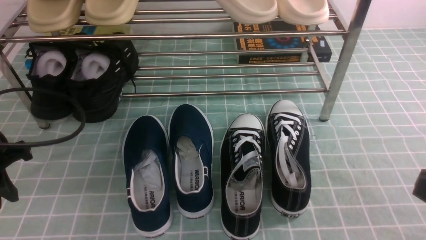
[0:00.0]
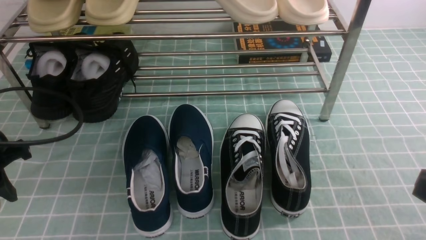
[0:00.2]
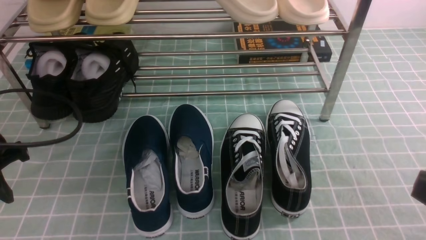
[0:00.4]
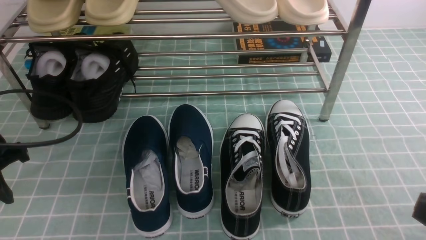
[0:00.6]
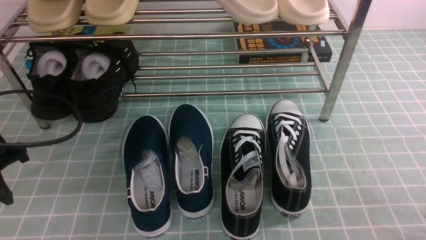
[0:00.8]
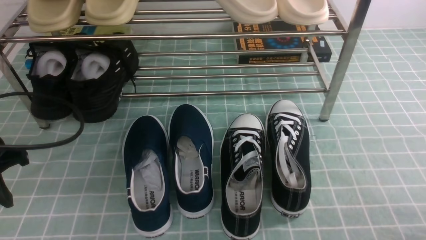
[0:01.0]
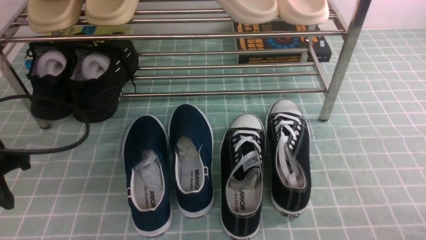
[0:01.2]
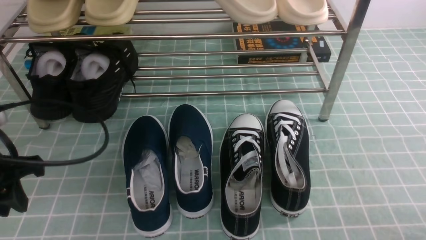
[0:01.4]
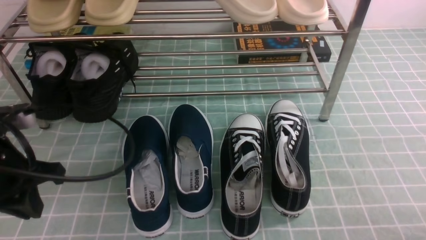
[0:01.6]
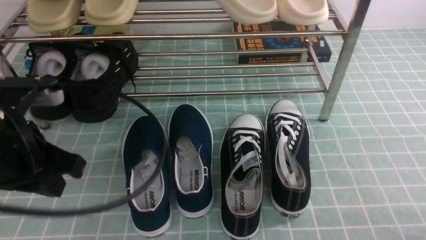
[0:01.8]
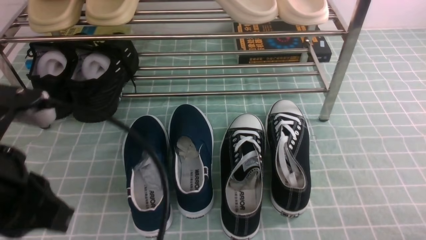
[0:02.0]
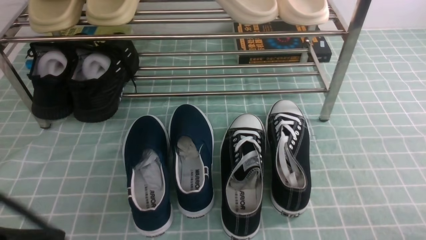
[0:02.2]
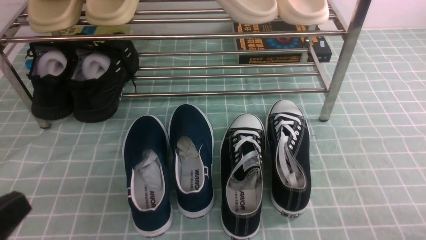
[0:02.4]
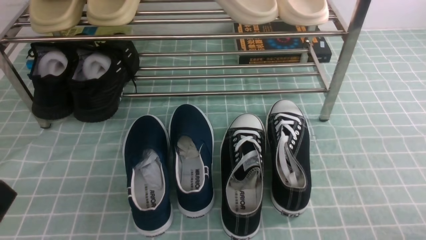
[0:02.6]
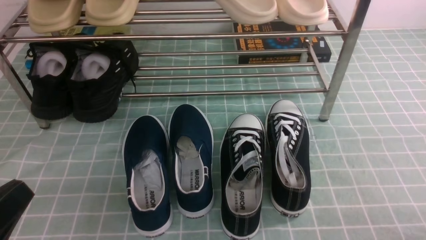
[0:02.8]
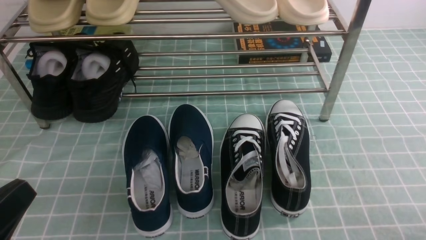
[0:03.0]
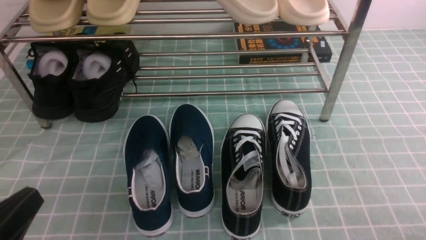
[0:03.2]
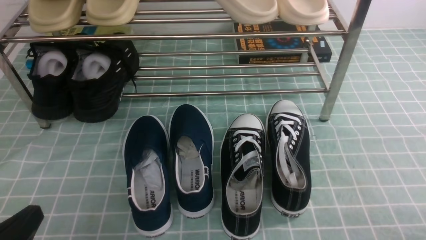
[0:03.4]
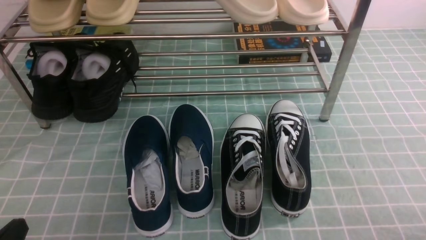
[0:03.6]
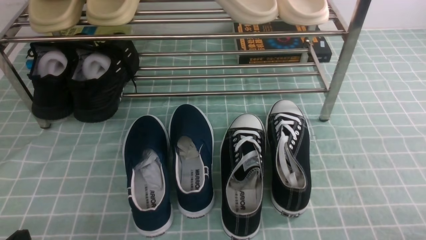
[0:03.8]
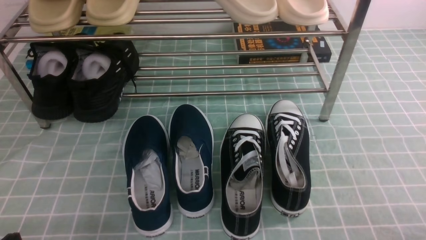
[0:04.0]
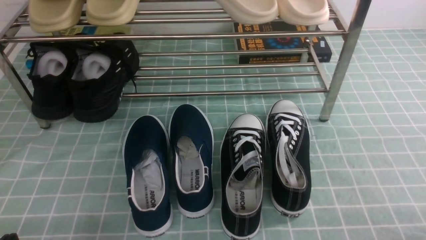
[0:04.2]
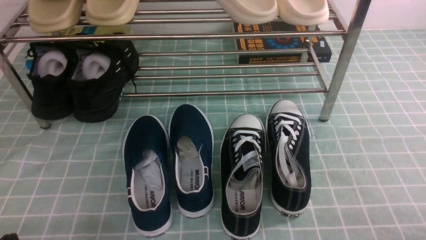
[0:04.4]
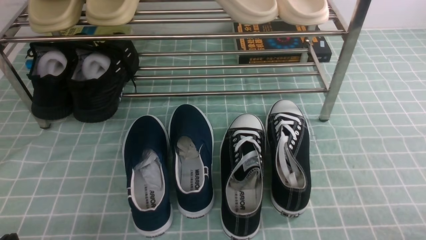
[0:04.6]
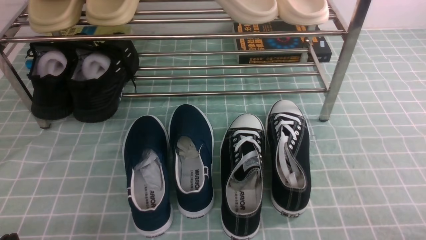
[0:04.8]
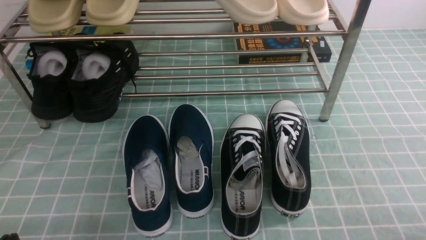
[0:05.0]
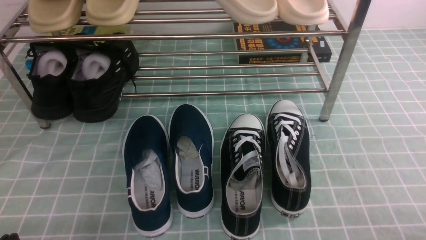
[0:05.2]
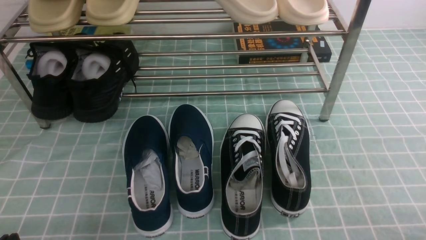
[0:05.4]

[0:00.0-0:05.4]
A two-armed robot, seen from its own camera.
0:00.0 to 0:01.4: The right gripper shifts about 15 cm downward.
0:01.4 to 0:02.8: The left gripper heads backward, covering approximately 20 cm, and closes up.
0:02.8 to 0:04.0: The left gripper heads downward, covering roughly 10 cm.
0:04.0 to 0:05.4: The two grippers keep their place.

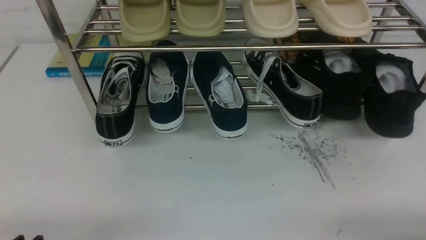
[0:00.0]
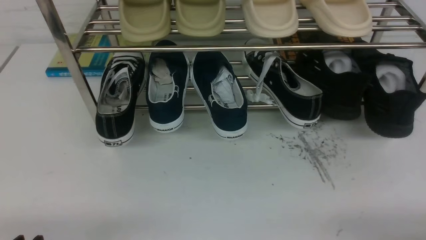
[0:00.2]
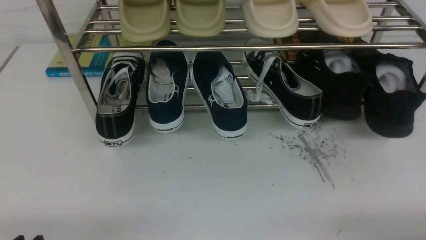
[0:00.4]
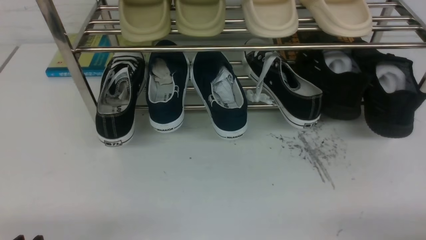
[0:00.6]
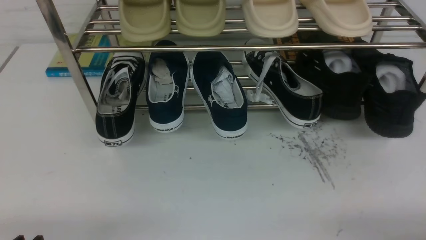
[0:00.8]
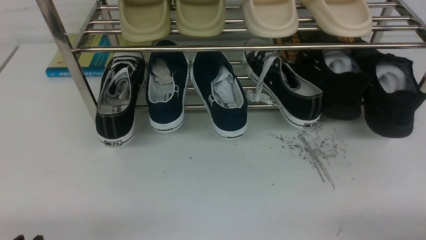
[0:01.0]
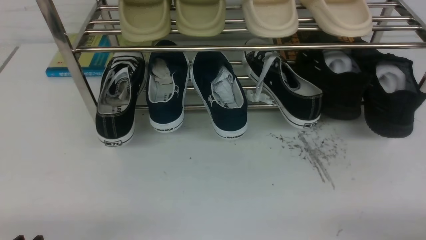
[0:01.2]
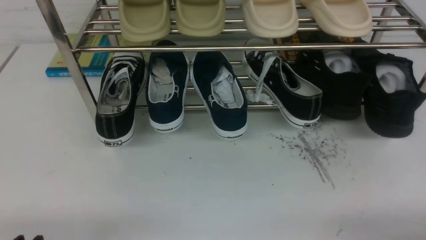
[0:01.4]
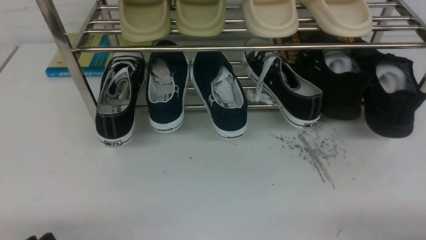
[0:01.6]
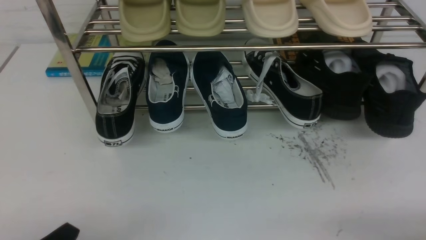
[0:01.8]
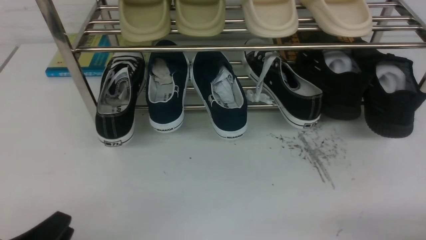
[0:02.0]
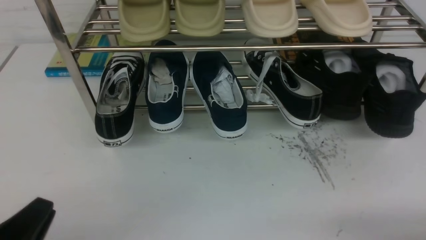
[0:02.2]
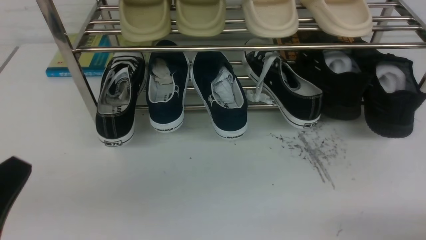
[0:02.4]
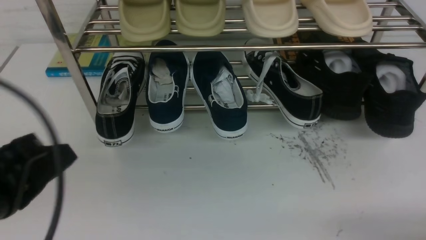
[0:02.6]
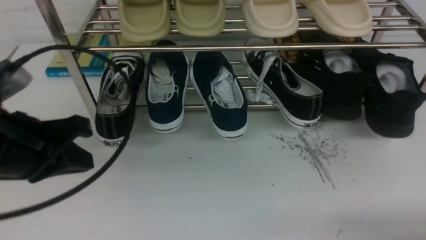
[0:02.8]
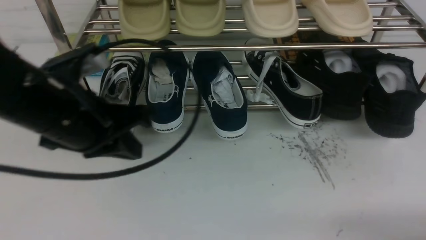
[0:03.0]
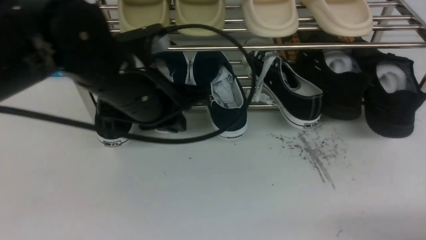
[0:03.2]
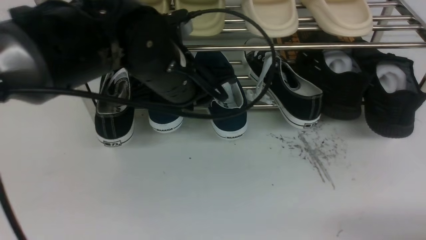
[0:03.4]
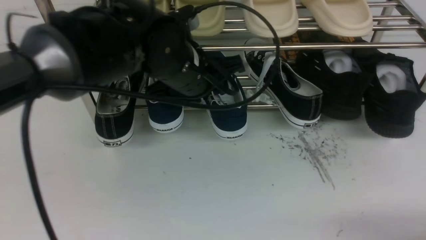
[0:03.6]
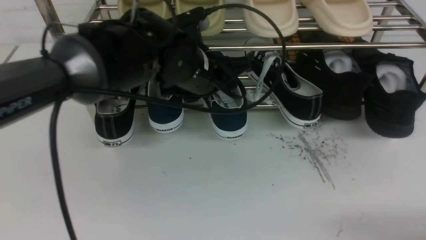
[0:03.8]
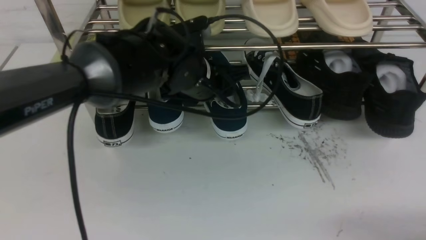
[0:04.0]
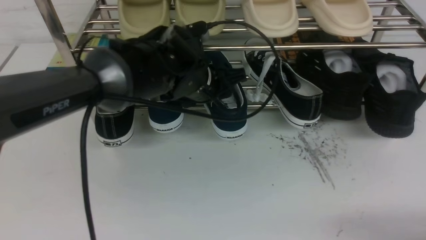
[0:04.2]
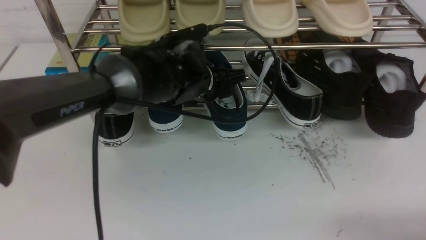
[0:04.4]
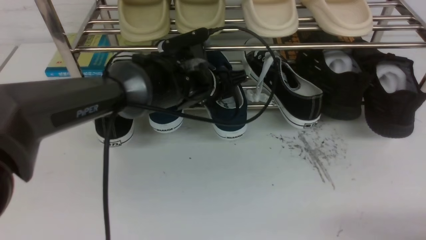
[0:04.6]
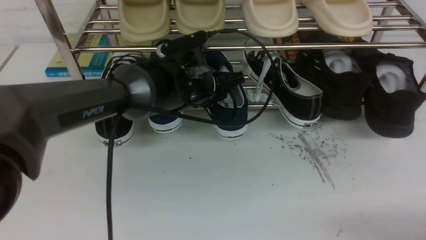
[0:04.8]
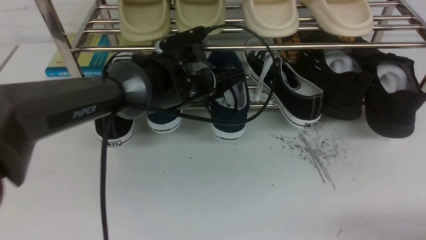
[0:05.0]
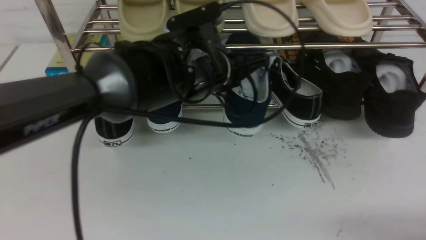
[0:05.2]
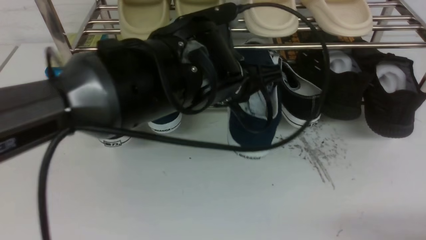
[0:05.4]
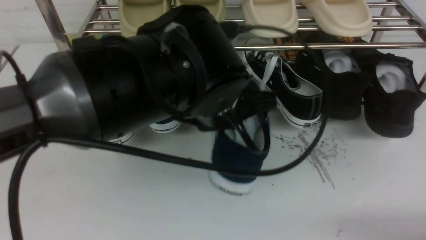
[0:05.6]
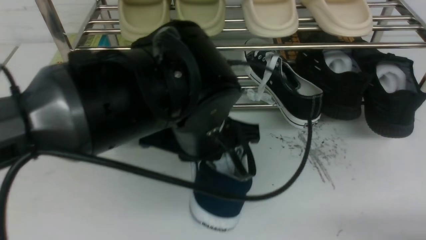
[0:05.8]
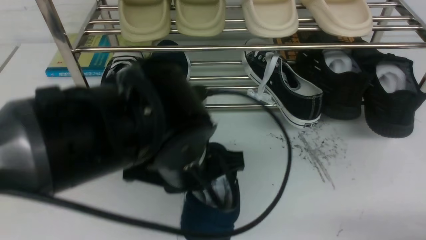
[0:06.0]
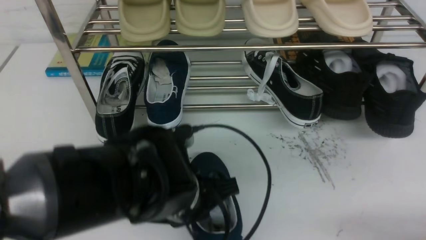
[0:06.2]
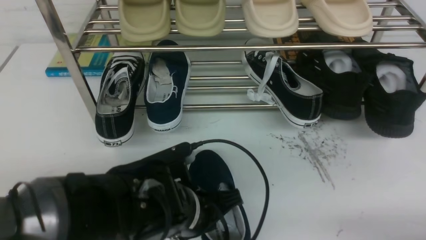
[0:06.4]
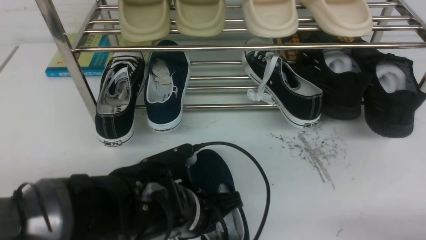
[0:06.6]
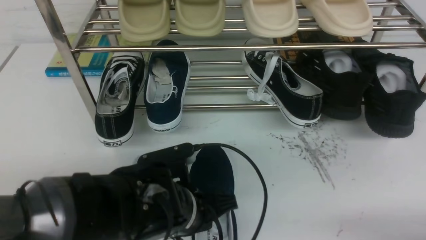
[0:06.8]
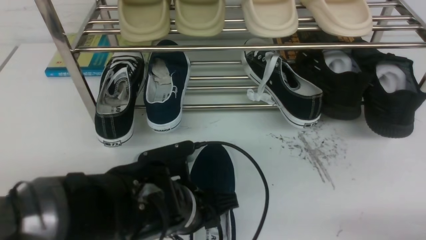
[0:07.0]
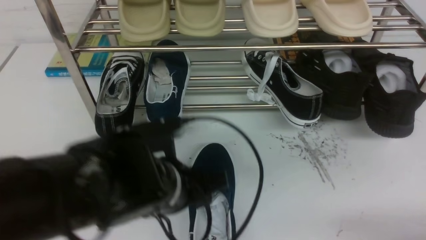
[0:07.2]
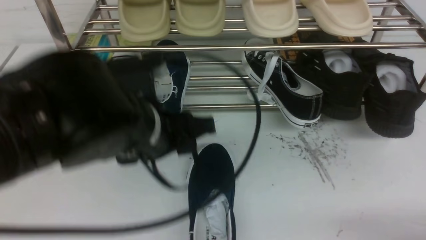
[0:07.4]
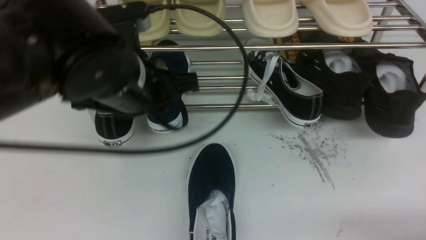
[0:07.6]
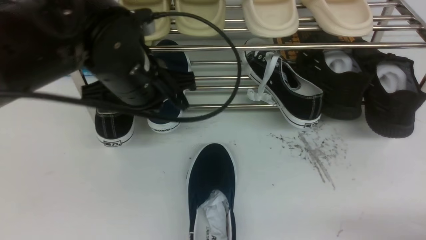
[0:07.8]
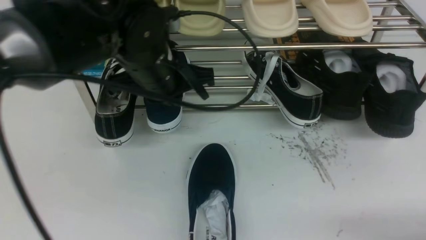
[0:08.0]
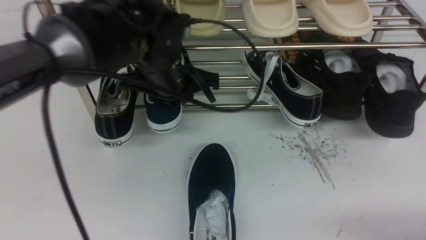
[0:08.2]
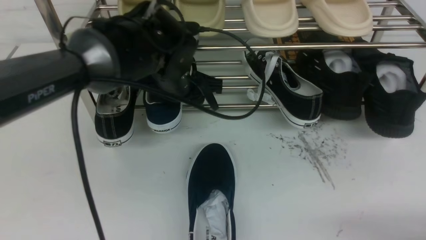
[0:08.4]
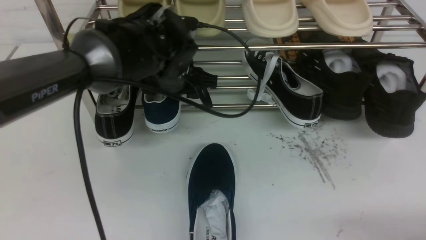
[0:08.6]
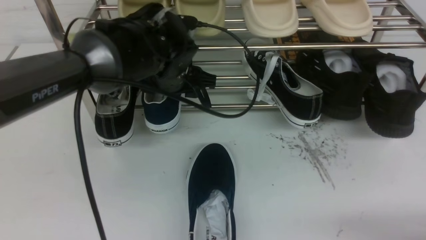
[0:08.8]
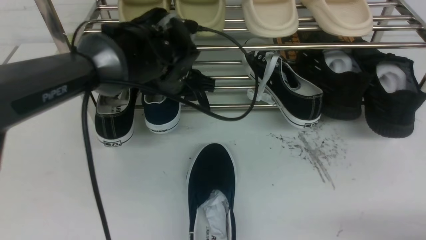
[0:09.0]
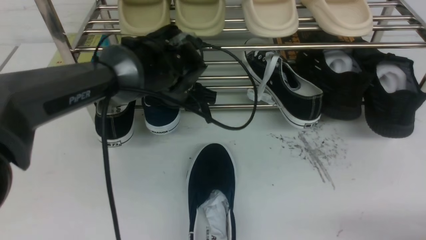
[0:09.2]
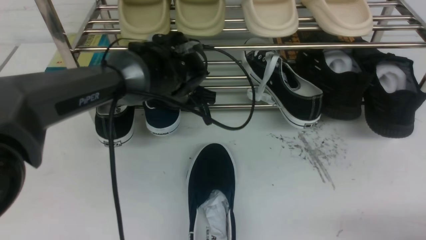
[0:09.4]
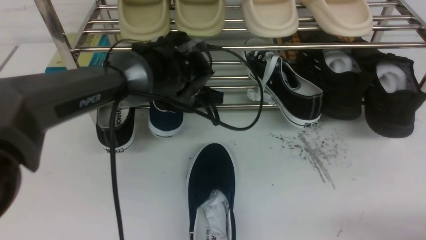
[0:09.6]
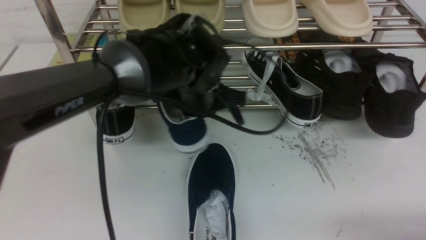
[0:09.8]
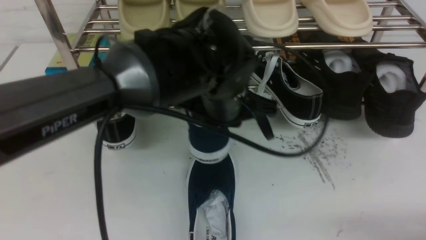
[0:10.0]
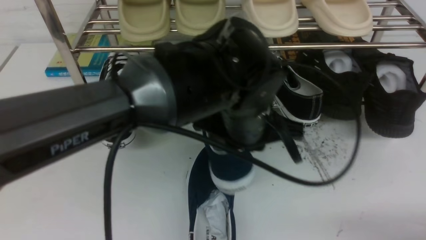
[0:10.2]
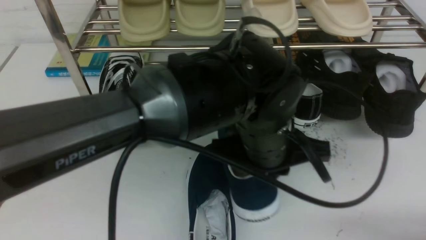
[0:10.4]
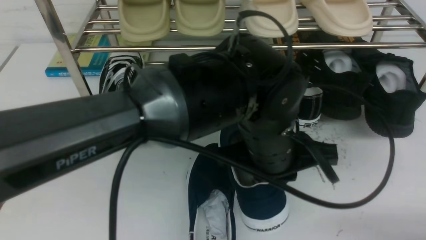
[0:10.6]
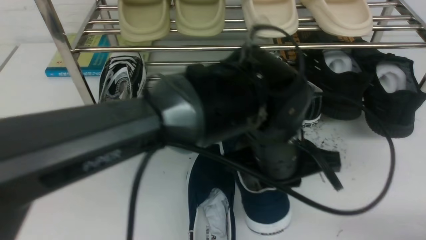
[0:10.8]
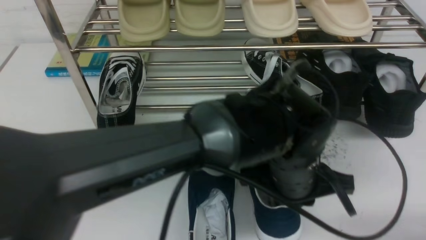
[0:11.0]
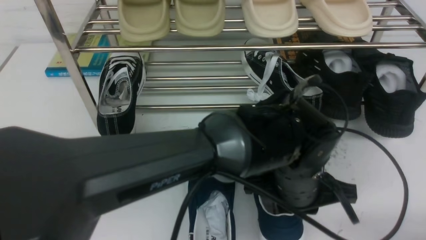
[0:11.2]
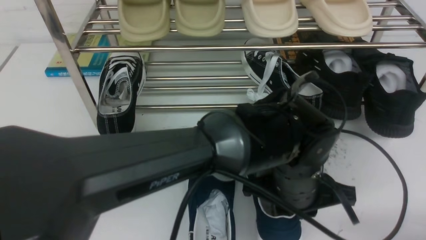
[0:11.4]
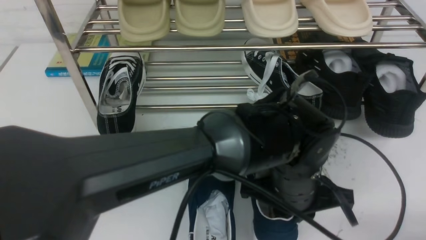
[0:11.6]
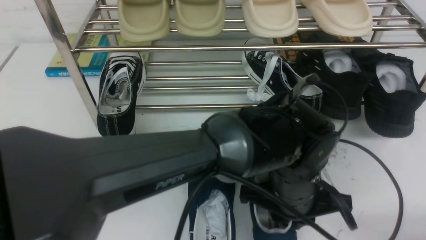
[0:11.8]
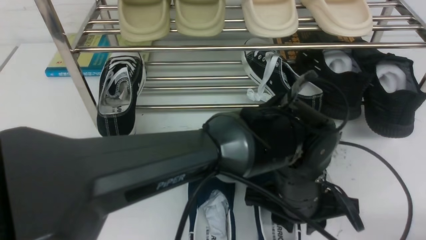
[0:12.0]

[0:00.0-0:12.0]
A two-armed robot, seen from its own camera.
Step, 0:00.0 to 0:05.2: use the left arm to clamp a shoe in the middle of the shoe rack.
Step, 0:05.4 to 0:07.2: Use your left arm to remove the clamped shoe from the shoe rack and put it down.
Step, 0:07.4 to 0:10.0: use the left arm to clamp a shoe on the left side of the shoe rack.
0:01.6 to 0:03.0: The left gripper heads forward, upward and to the right, covering about 25 cm, and closes up.
0:03.0 to 0:04.4: The left gripper is displaced to the right, forward and downward by roughly 20 cm, and opens up.
0:04.4 to 0:06.0: The left gripper heads backward, covering approximately 15 cm, and closes its fingers.
0:06.0 to 0:07.6: The left gripper is displaced upward and to the left by approximately 10 cm, and opens, then closes again.
0:07.6 to 0:09.0: The left gripper moves forward and downward, roughly 15 cm, and opens.
0:09.0 to 0:10.4: The left gripper is displaced backward and to the right by about 15 cm, and closes up.
0:10.4 to 0:12.0: The left gripper goes roughly 5 cm downward, and opens its fingers.
